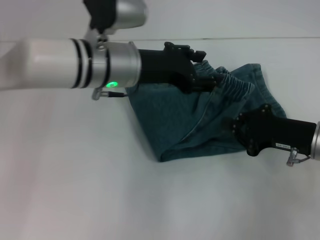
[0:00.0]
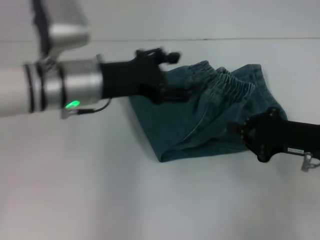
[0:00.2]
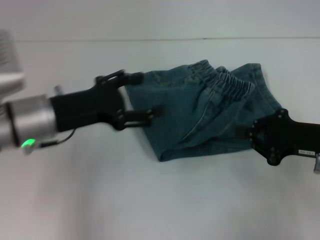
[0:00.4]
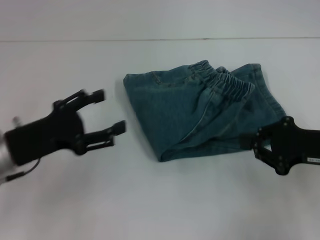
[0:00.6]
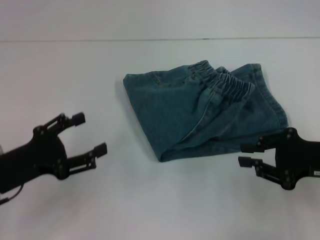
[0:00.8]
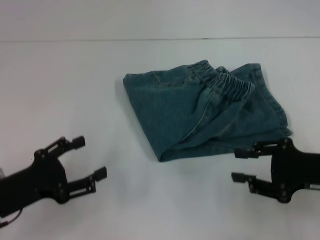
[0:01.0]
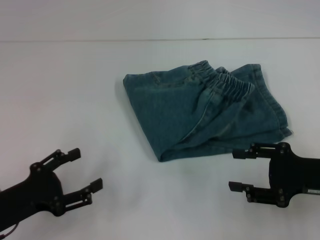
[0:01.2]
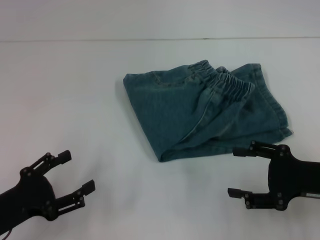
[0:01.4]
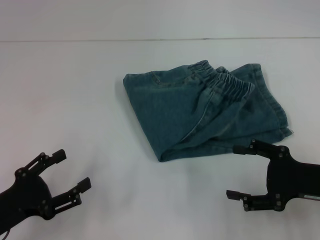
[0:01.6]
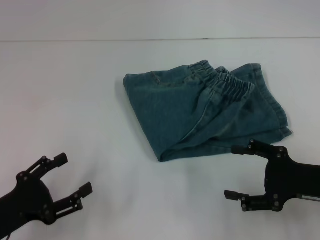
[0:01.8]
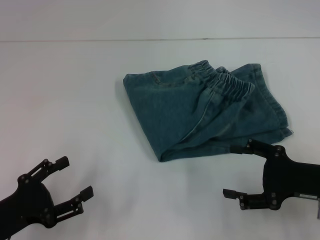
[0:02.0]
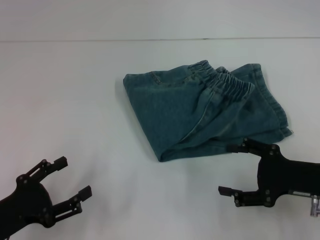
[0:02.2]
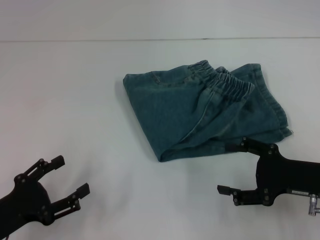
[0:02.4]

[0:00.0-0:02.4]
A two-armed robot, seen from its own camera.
0:00.0 to 0:01.2: The right gripper moves backward, some 5 cm. Meanwhile the left gripper heads to the left, backward and downward, covering some 30 cm, and opens up.
0:01.2 to 0:02.4: The right gripper opens its fingers.
